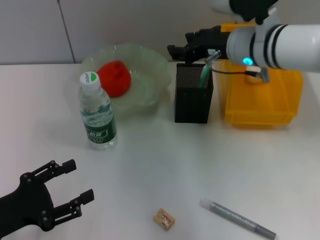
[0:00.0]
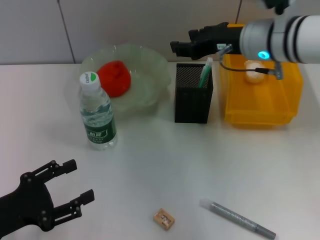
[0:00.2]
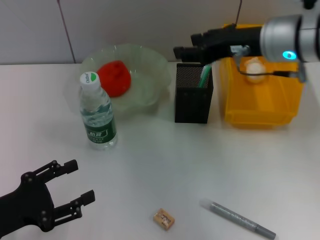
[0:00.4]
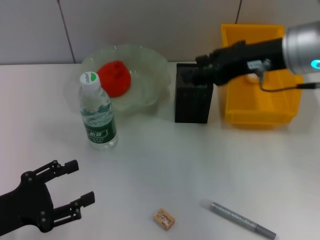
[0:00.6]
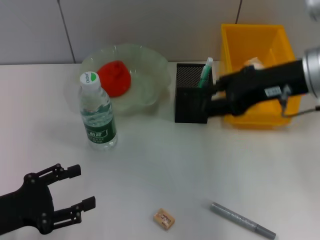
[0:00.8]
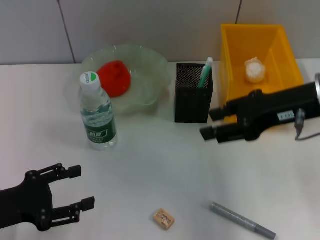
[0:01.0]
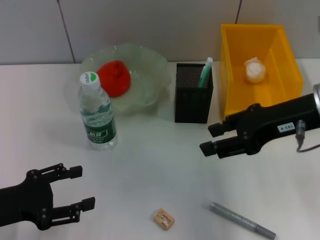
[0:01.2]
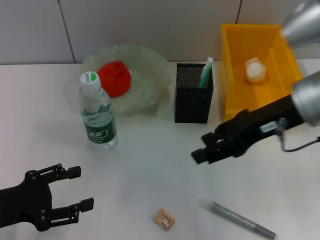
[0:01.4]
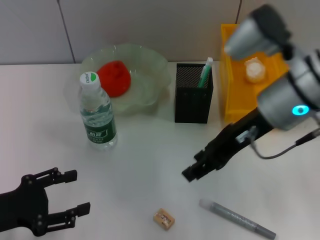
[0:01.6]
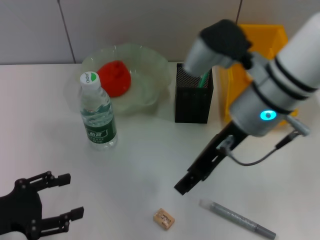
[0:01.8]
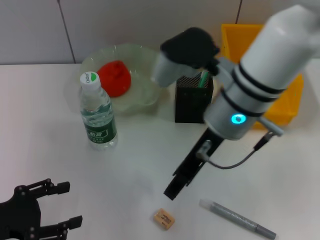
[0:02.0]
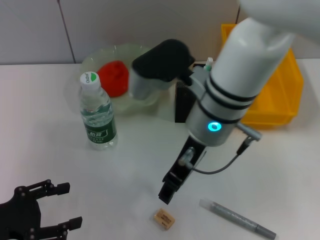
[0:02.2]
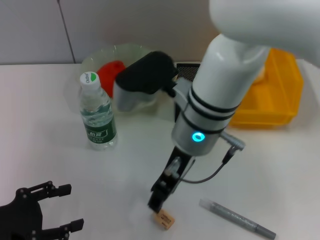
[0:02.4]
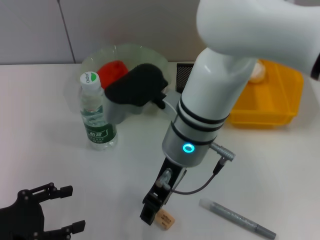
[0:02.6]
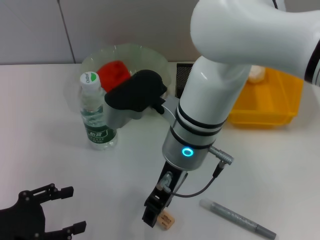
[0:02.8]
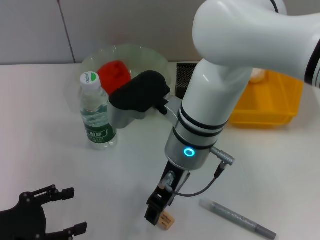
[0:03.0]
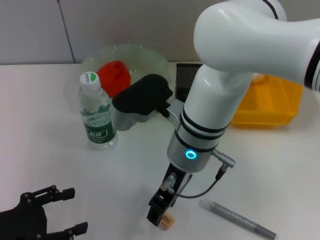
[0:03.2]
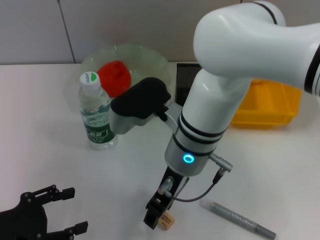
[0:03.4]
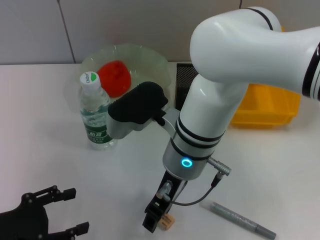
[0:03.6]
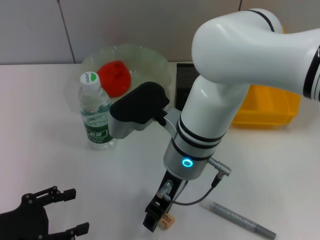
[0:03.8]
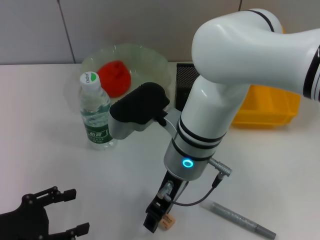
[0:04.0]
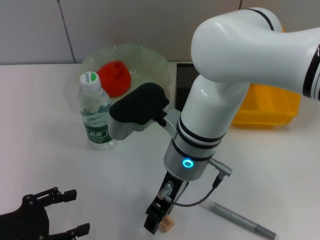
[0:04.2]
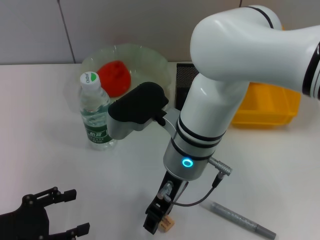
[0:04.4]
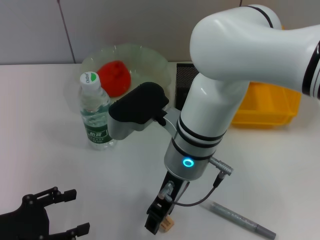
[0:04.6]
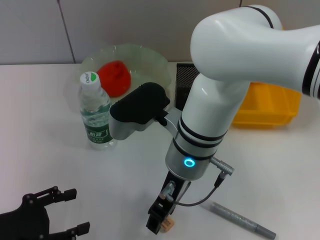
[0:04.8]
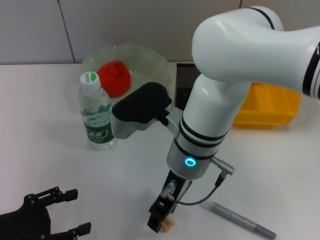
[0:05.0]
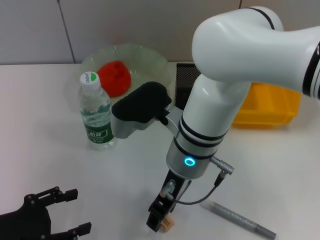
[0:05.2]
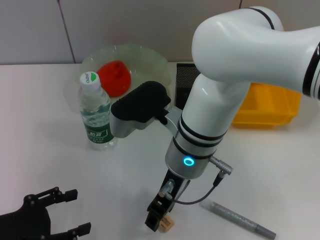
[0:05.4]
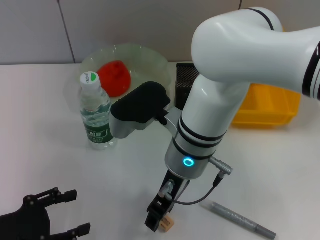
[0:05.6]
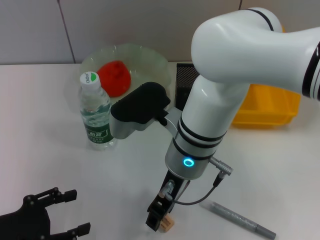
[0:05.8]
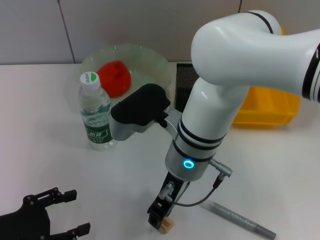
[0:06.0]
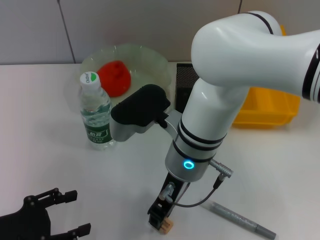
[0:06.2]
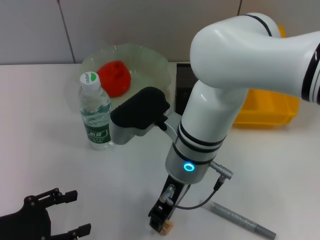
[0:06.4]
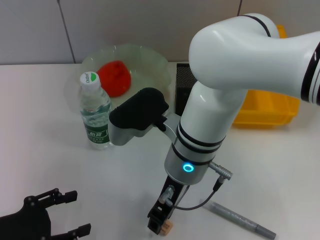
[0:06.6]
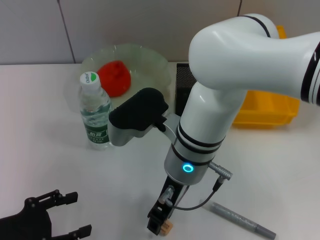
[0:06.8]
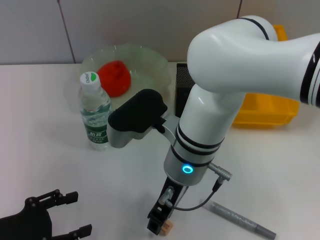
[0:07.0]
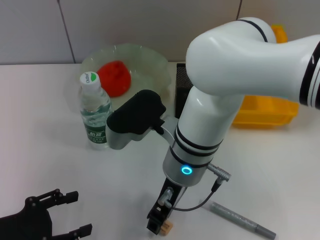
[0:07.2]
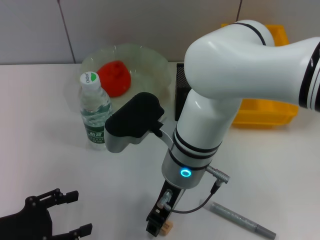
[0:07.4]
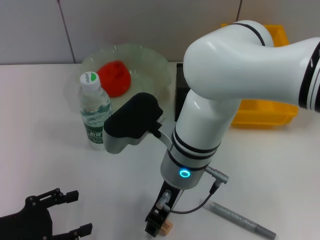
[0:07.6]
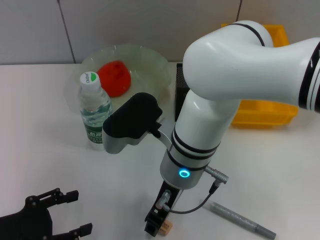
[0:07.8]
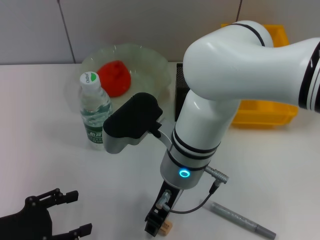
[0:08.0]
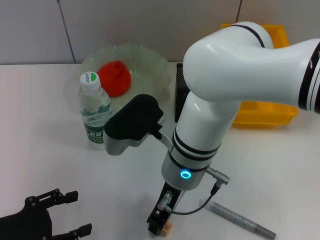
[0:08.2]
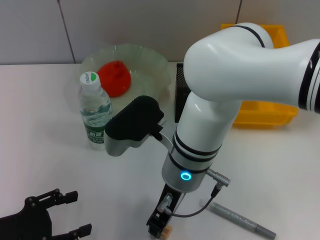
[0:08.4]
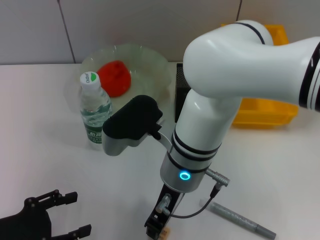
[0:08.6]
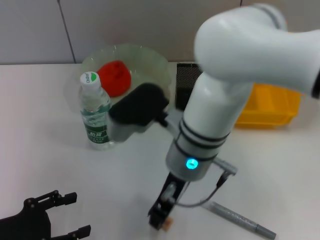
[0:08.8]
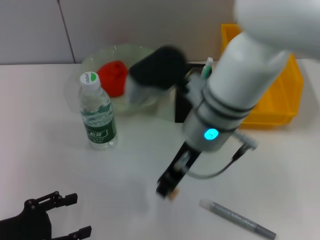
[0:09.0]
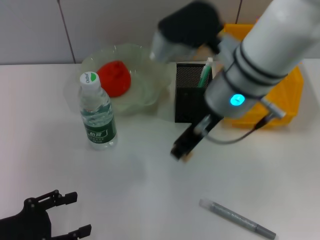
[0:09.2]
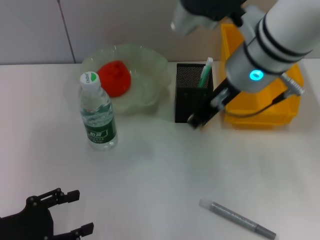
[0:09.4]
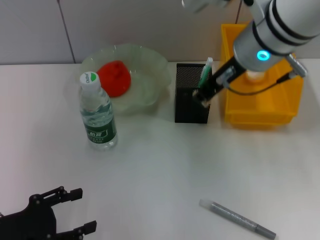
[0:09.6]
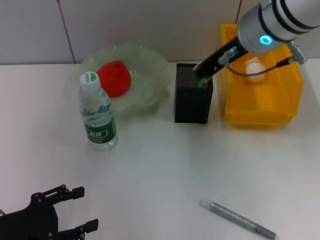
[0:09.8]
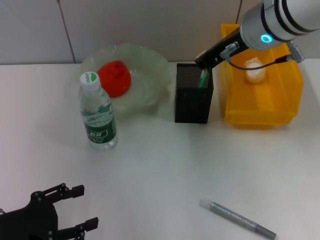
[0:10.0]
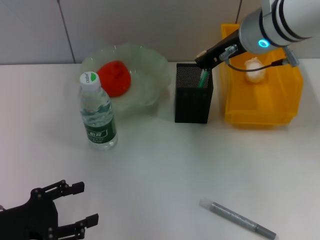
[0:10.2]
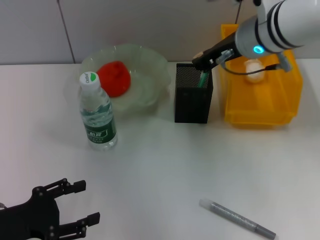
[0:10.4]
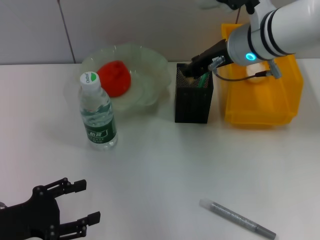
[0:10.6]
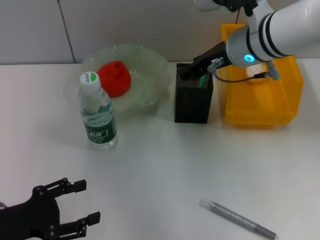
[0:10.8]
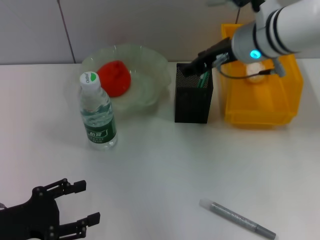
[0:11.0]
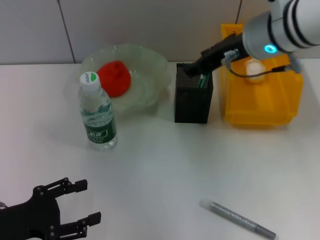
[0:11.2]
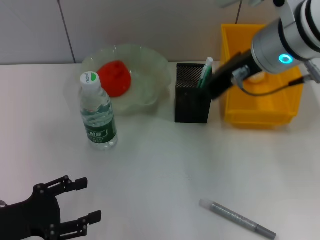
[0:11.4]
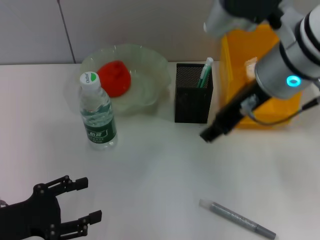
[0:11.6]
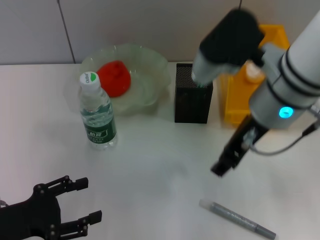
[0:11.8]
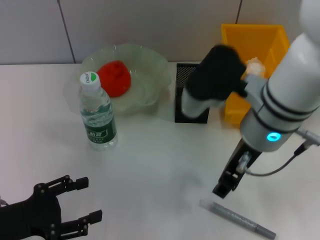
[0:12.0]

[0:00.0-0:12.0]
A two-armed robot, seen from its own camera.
Step, 0:00.4 to 0:08.4: Grab the eraser with the right hand.
Step, 0:08.6 to 0:11.0: Put the eraser into the pen holder with the right hand.
0:00.0 to 0:01.6: The right gripper moves backward, some 10 cm.
0:01.6 to 0:03.0: The right gripper goes approximately 15 cm to the left and downward.
0:03.0 to 0:04.4: There are only small adjustments of the grippers.
0:04.4 to 0:07.6: The two grippers keep their place.
0:07.6 to 0:09.0: The right gripper heads upward, covering about 5 cm.
0:09.0 to 0:10.4: The right gripper moves forward and to the right, approximately 10 cm.
0:10.4 to 0:12.0: The right gripper moves backward, approximately 10 cm, and opens.

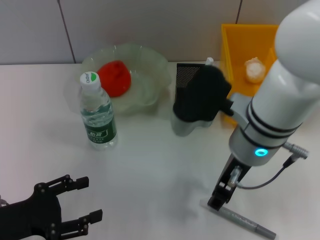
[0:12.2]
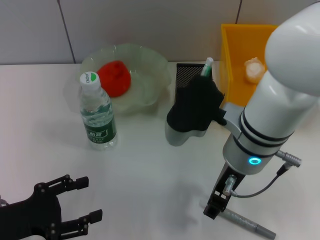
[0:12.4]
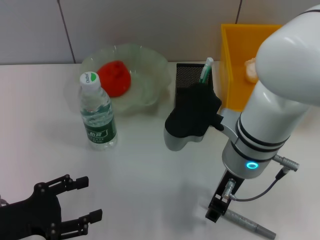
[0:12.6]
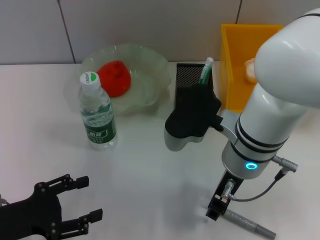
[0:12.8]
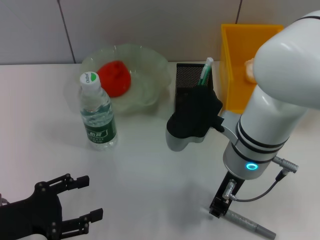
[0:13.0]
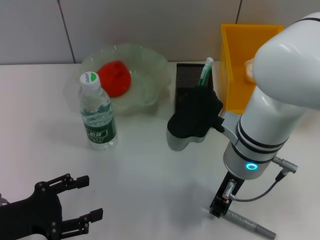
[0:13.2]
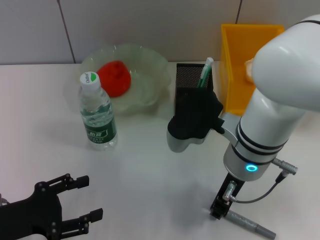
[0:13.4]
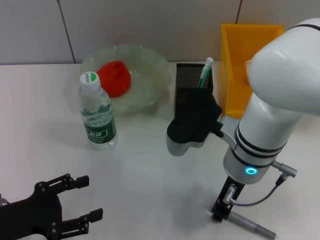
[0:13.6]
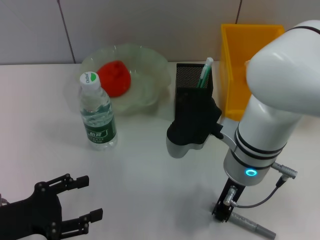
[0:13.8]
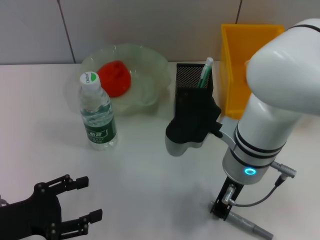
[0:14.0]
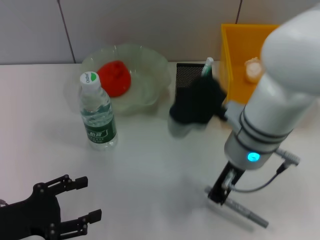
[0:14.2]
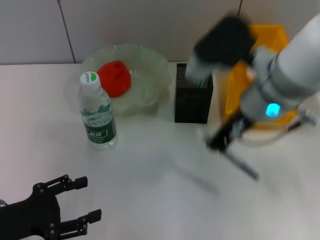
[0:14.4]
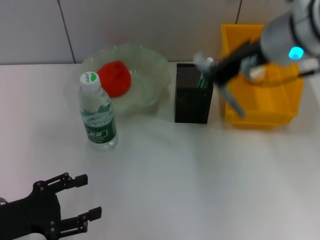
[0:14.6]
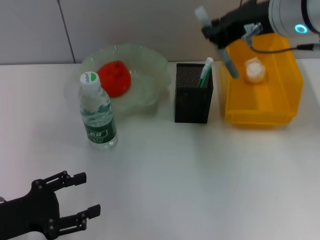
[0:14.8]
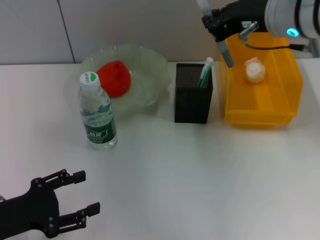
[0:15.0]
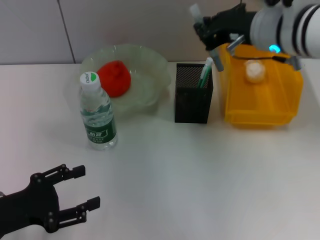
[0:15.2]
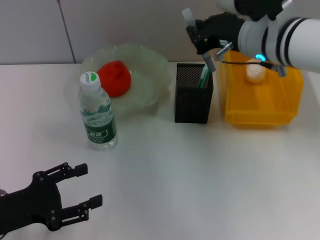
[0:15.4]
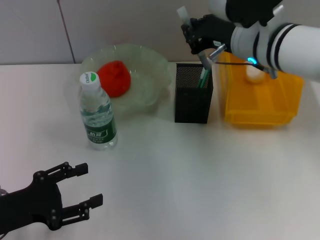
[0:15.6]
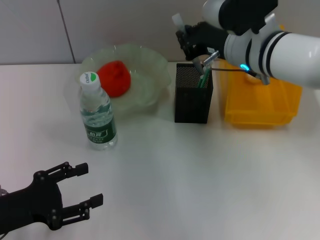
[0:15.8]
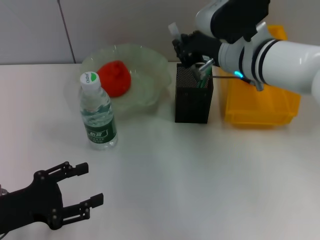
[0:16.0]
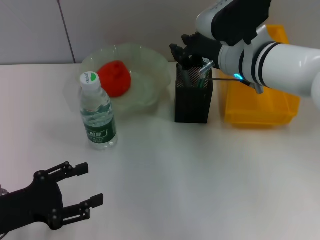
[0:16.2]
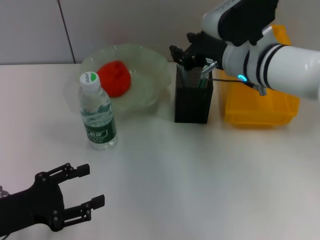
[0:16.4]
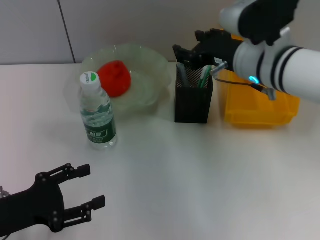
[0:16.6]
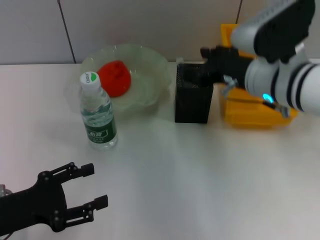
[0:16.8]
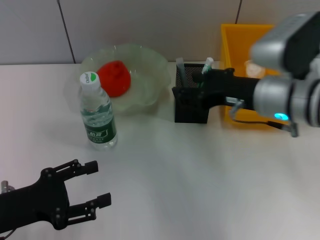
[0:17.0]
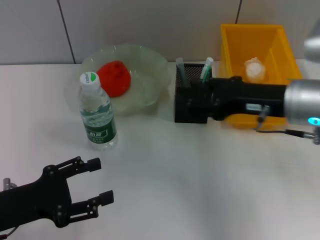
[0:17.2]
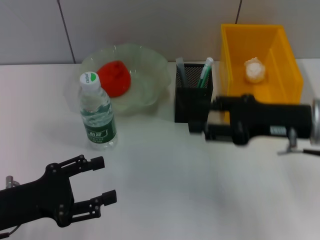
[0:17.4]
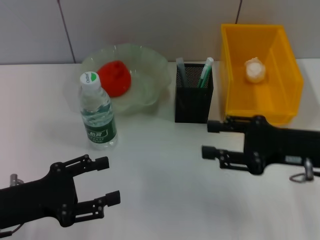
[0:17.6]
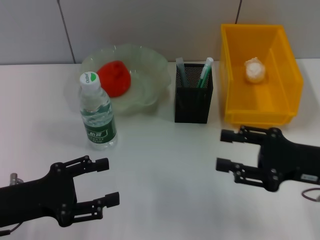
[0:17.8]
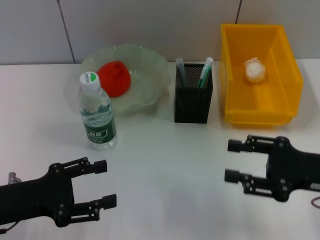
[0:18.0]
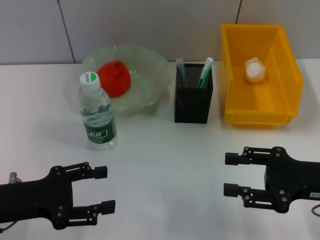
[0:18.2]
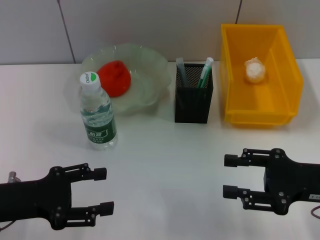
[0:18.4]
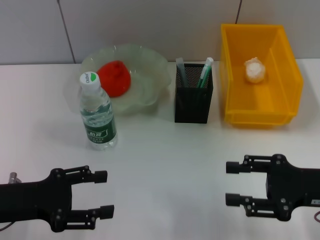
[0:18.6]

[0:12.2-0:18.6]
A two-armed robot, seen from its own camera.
Step, 0:12.2 to 0:13.8: Grab the gray glue with the right hand.
Step, 0:14.0 to 0:16.8: Place the gray glue into the pen holder with the right hand.
0:12.2 to 0:13.8: The right gripper closes.
0:13.8 to 0:15.4: The right gripper is displaced forward and upward by roughly 10 cm.
0:15.4 to 0:17.0: The right gripper goes approximately 5 cm backward, and opens its fingers.
0:17.0 to 0:18.6: The right gripper shifts about 15 cm to the right, backward and downward.

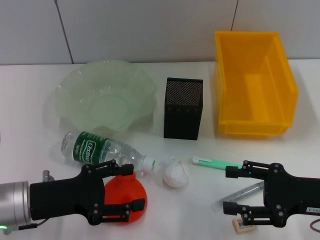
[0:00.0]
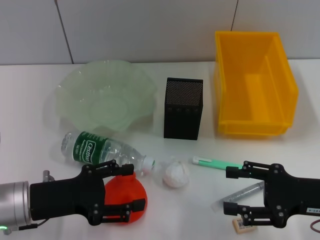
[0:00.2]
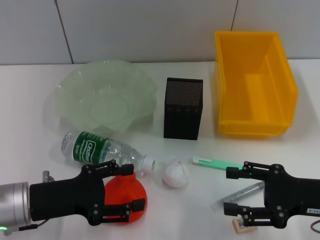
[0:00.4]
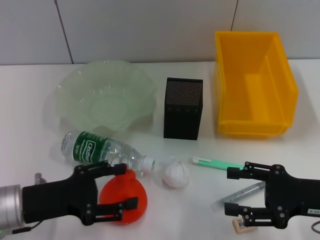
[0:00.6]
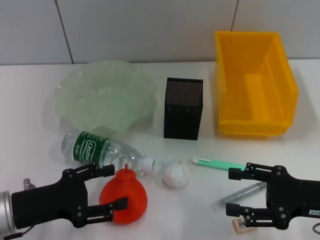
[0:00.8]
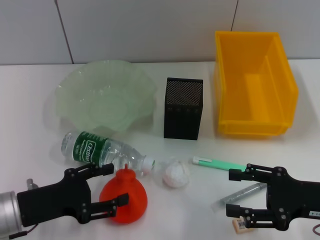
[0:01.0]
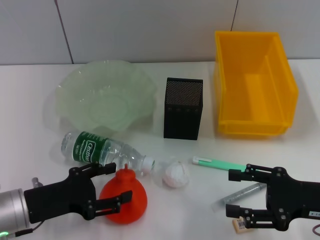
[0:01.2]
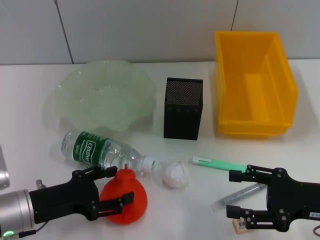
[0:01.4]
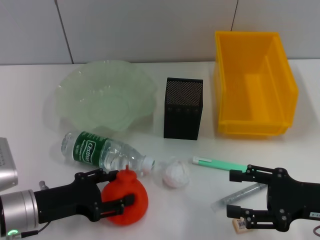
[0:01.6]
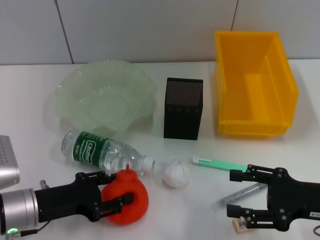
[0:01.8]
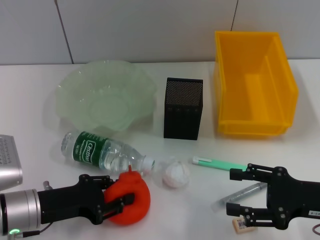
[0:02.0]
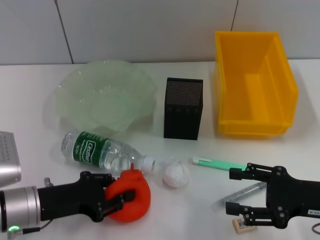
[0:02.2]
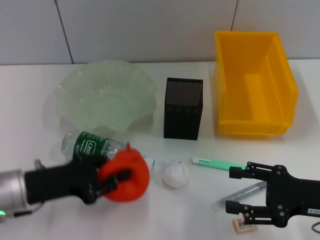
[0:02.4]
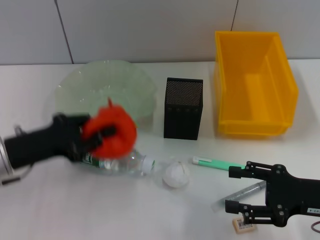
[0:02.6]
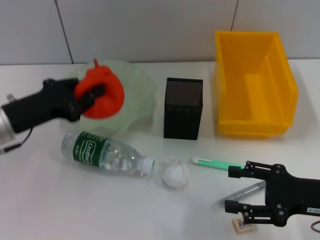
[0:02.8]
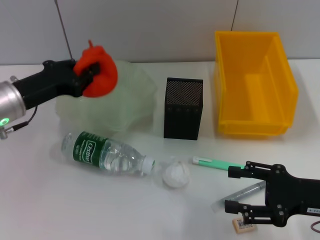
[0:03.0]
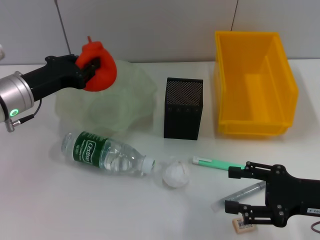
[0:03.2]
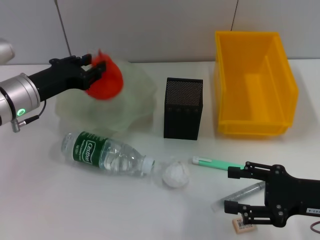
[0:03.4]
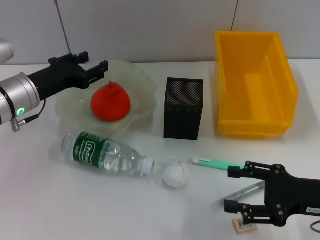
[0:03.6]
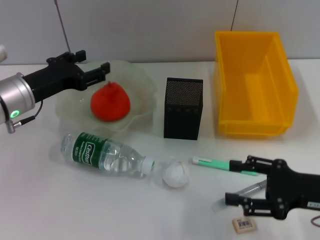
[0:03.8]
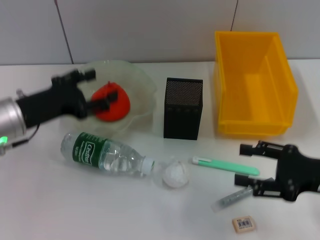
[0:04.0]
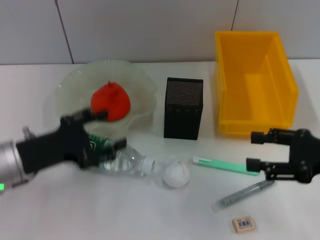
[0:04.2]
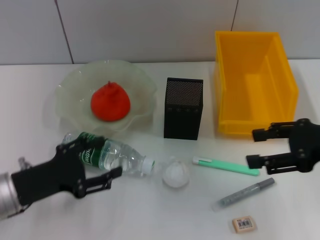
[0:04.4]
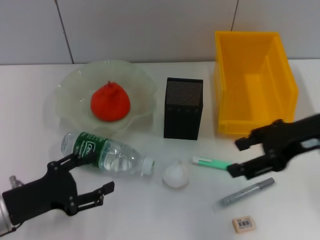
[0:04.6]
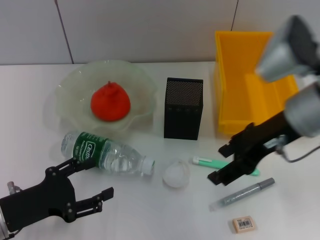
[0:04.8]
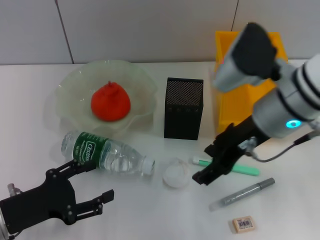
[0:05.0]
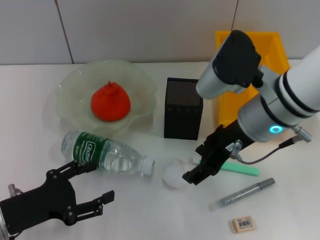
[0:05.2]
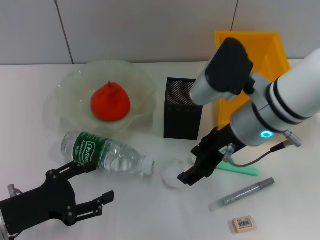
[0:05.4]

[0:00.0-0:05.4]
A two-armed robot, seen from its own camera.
Step, 0:00.0 to 0:02.0: Grab the orange with the left hand.
Step, 0:02.2 to 0:03.4: Place the orange into the fruit bowl with the left hand.
0:00.0 to 0:01.4: The grippers make only small movements.
0:01.4 to 0:02.8: The left gripper travels upward and forward by roughly 10 cm, and closes.
0:02.8 to 0:04.0: The left gripper opens its fingers.
0:04.0 to 0:05.4: The left gripper is displaced backward and downward by roughly 15 cm. The right gripper travels to the left, forward and upward by approximately 20 cm.
